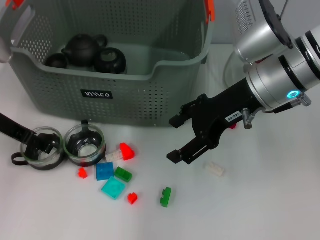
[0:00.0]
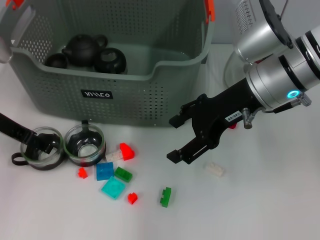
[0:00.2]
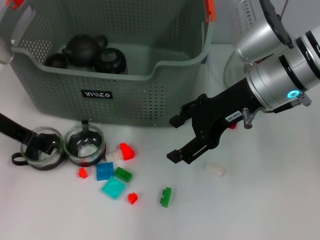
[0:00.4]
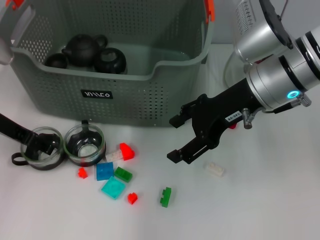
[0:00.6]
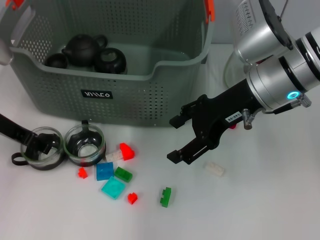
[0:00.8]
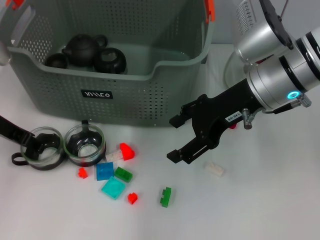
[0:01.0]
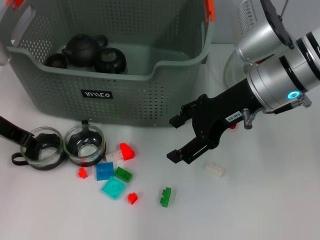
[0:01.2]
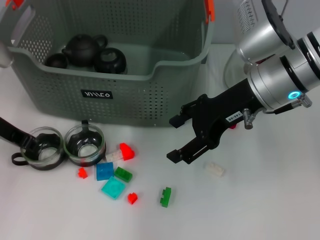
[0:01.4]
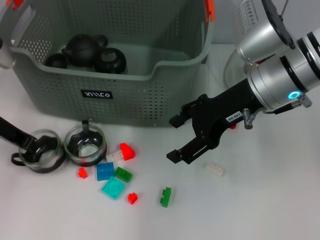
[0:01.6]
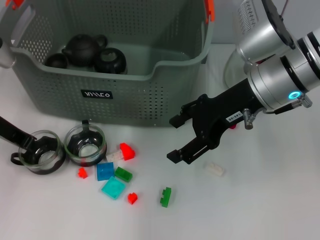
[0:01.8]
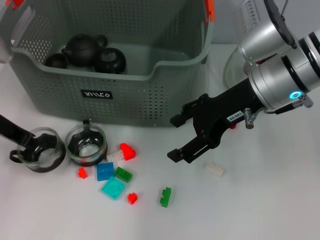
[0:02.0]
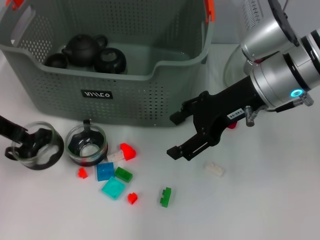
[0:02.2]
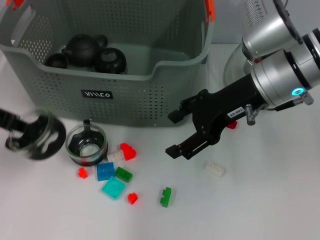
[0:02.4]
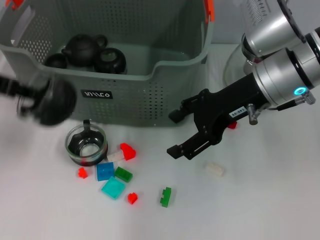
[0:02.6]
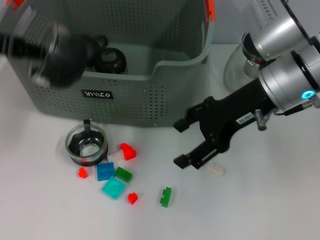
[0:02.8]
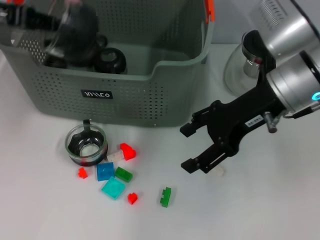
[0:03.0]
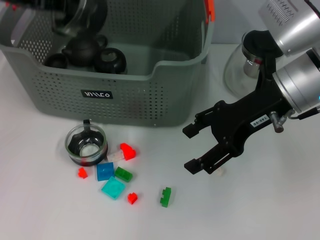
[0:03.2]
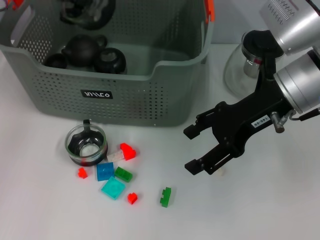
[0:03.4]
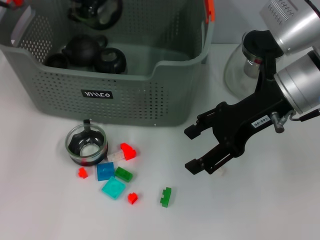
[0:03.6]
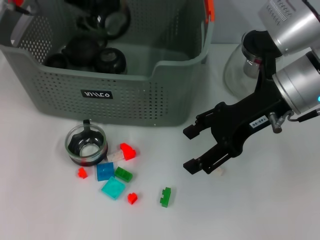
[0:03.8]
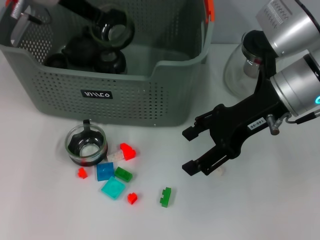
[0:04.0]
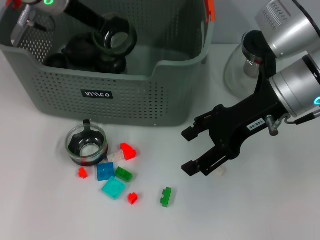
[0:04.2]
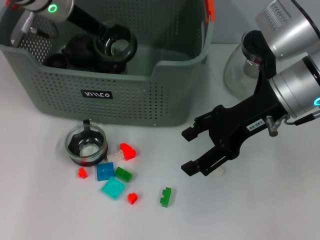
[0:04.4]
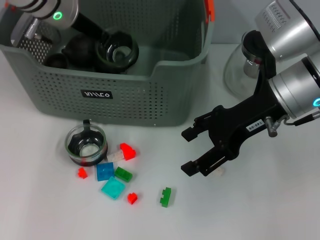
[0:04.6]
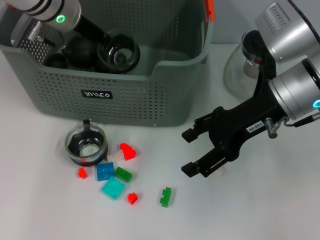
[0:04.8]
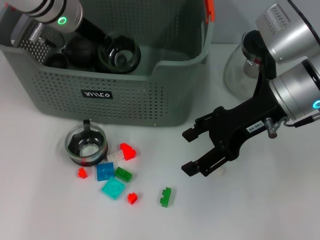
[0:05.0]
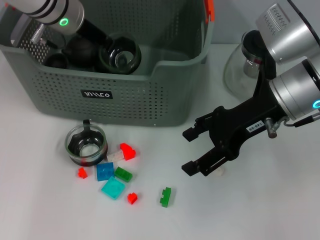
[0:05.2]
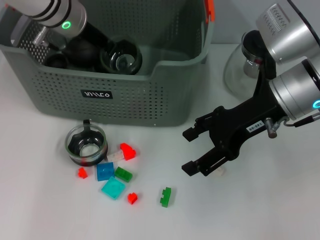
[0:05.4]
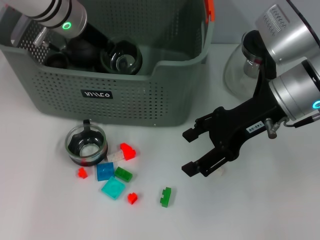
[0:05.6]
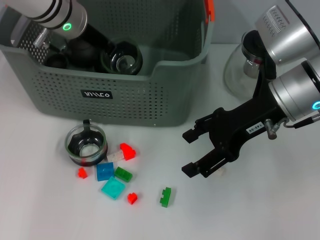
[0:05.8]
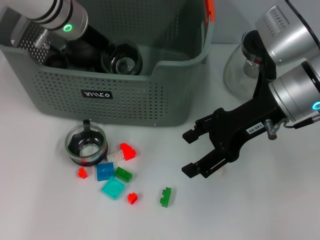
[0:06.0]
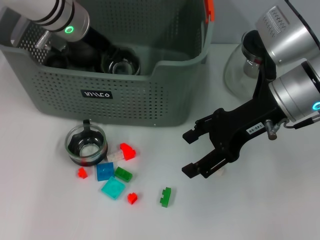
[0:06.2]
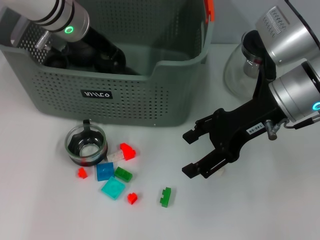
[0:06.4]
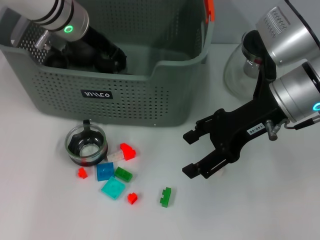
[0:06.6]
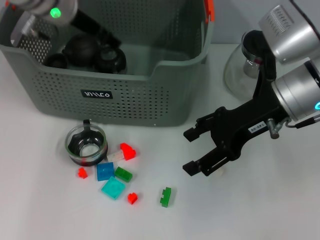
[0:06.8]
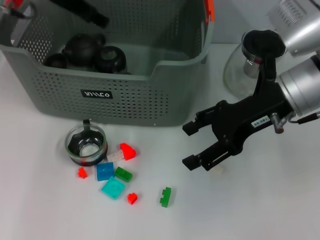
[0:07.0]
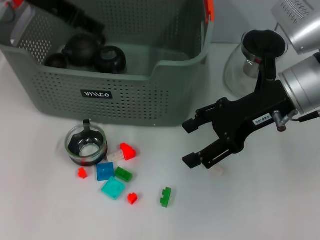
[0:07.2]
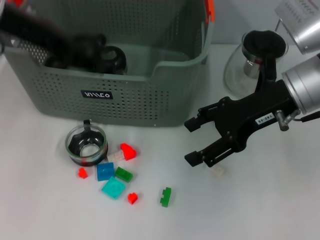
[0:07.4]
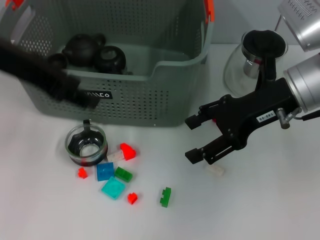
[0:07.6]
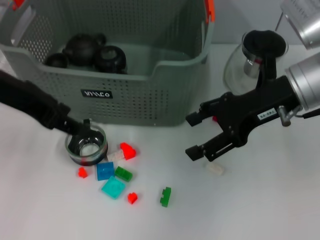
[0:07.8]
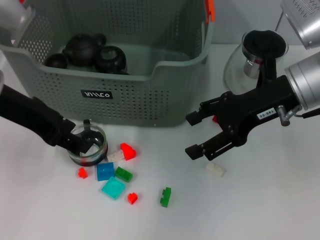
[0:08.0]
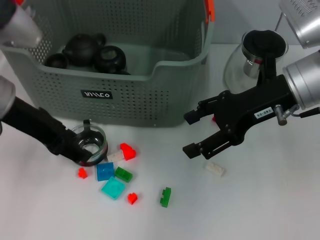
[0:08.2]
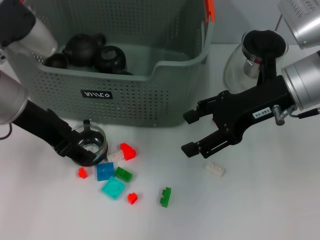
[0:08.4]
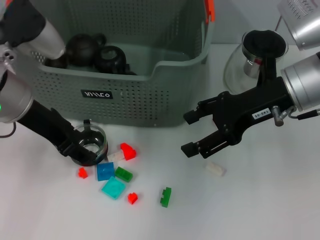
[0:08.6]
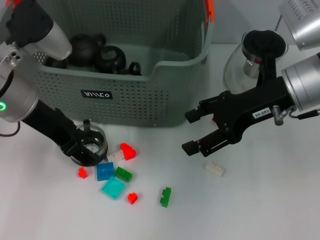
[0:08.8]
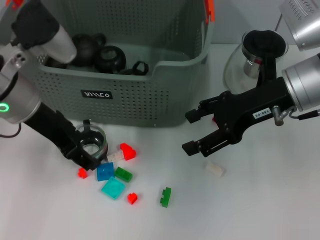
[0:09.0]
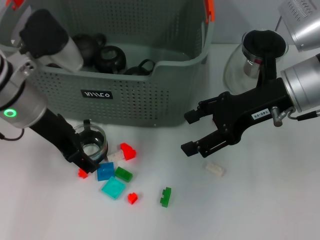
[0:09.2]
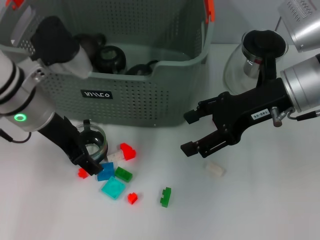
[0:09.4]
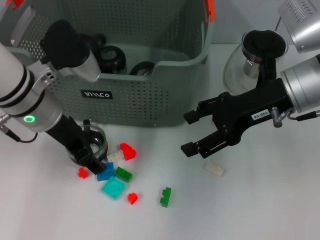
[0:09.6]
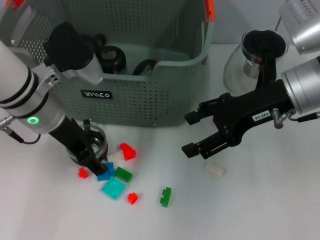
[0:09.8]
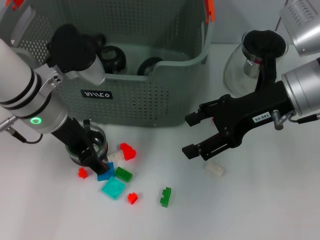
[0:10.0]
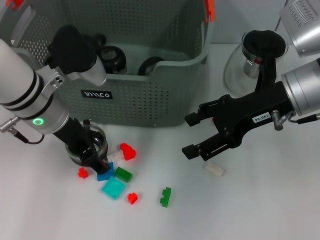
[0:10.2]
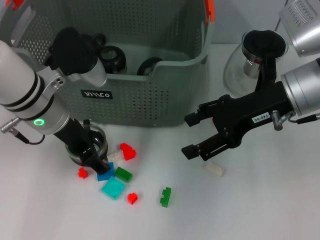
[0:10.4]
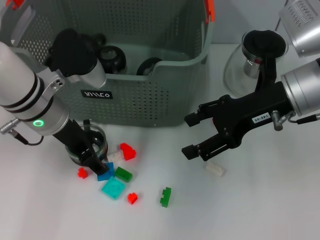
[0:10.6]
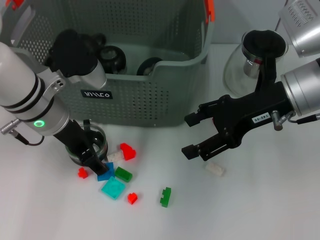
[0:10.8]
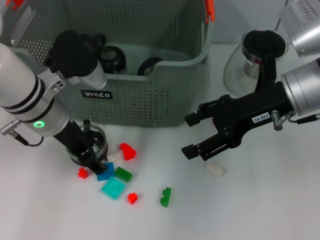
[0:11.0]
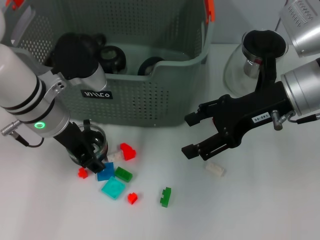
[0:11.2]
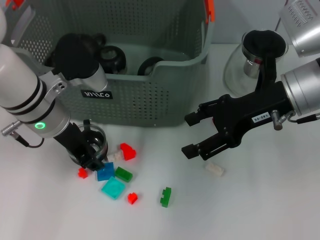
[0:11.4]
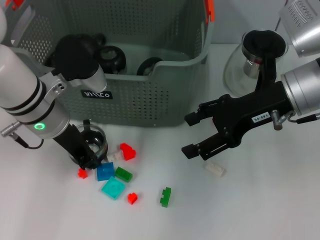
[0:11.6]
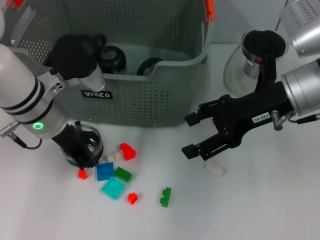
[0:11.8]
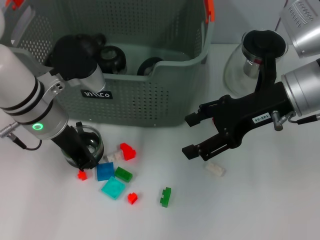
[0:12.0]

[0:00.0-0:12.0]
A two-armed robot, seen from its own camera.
Task of the whole recording: pick up the teacup on the table and place it into the storage bin, pick up the block on the table and place it into the storage bin.
Step, 0:01.4 to 0:06.8: Place the cup in the storage box with left gripper.
Step, 0:07.0 to 0:11.6: Grasp the cup with left gripper.
0:00.0 to 0:01.6: The left gripper closes its fingers.
0:01.6 to 0:03.0: The left gripper goes some 15 cm upward.
0:03.0 to 0:04.4: The left gripper is displaced to the right, forward and downward by some 15 cm.
0:04.4 to 0:06.0: There are only small adjustments of the grippers.
0:06.0 to 0:07.6: The left gripper moves backward, upward and to the left, approximately 15 cm, and opens.
0:07.6 to 0:09.0: The left gripper travels downward by roughly 10 cm.
0:09.0 to 0:10.4: The left gripper moves some 5 cm.
0:10.4 to 0:12.0: The left gripper closes up.

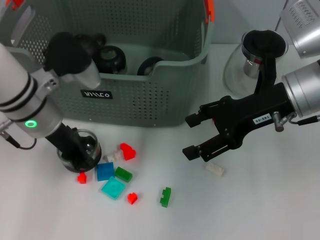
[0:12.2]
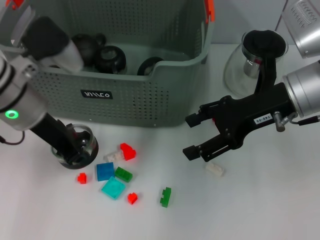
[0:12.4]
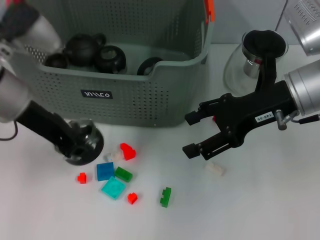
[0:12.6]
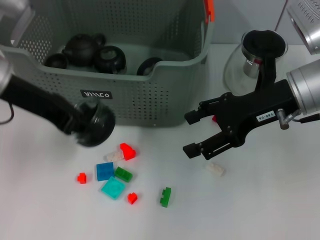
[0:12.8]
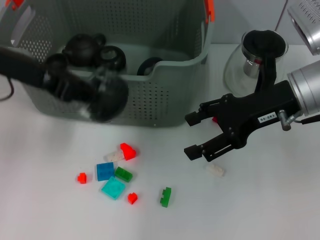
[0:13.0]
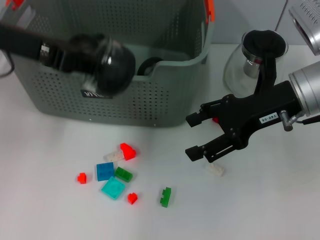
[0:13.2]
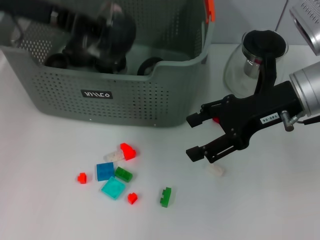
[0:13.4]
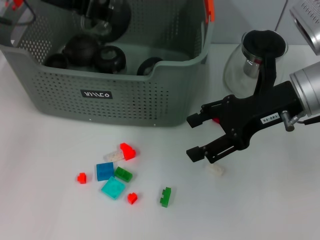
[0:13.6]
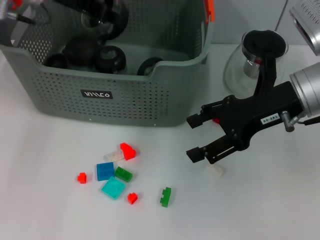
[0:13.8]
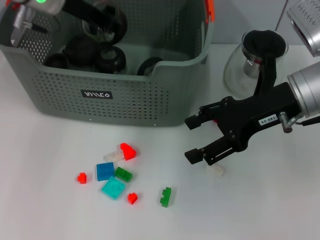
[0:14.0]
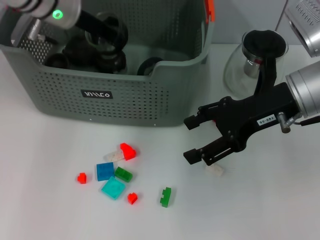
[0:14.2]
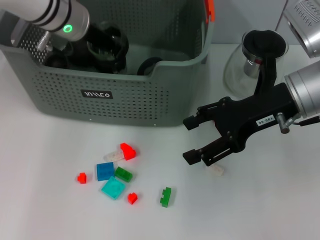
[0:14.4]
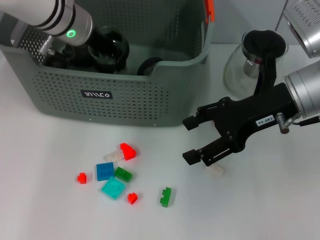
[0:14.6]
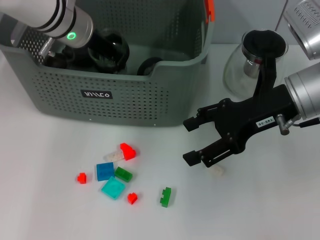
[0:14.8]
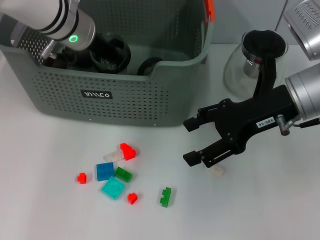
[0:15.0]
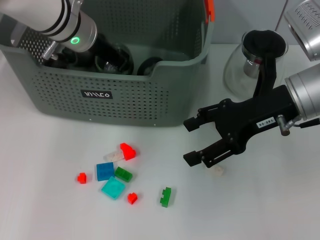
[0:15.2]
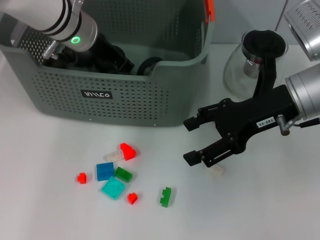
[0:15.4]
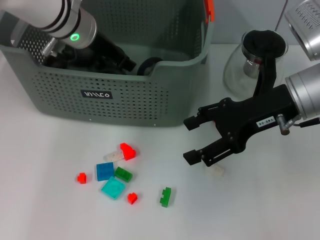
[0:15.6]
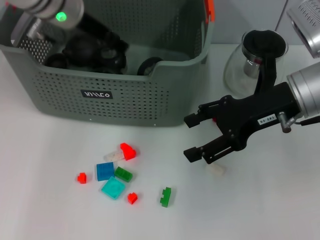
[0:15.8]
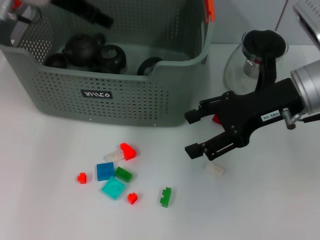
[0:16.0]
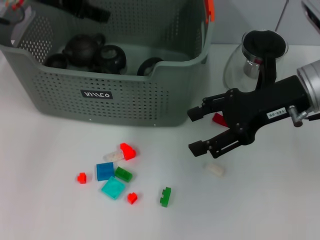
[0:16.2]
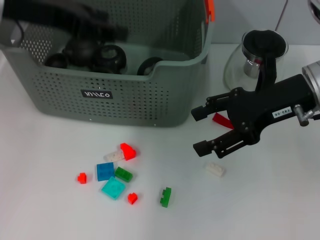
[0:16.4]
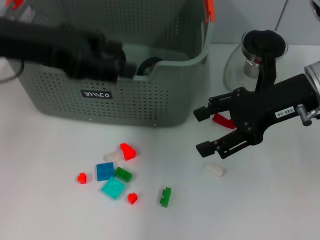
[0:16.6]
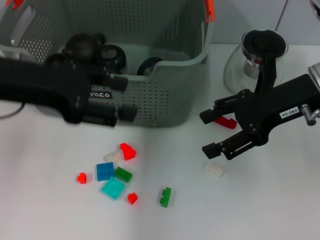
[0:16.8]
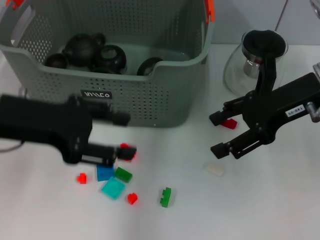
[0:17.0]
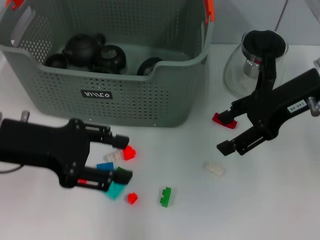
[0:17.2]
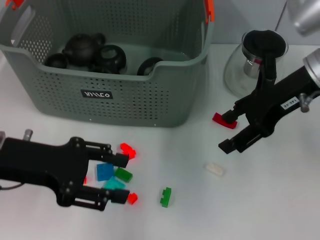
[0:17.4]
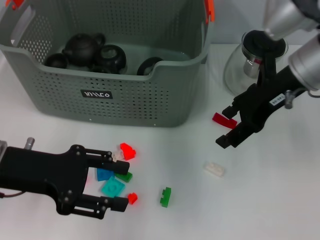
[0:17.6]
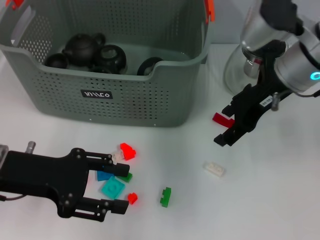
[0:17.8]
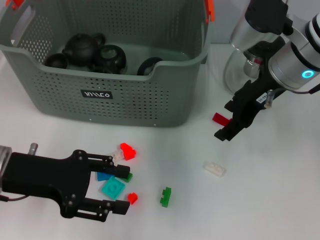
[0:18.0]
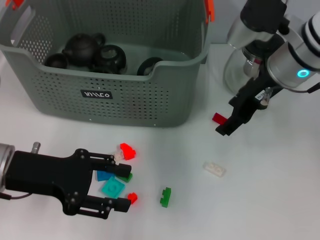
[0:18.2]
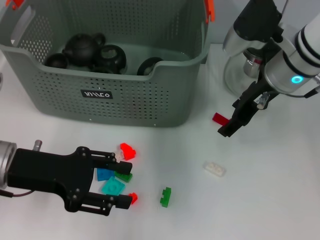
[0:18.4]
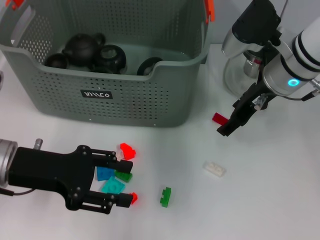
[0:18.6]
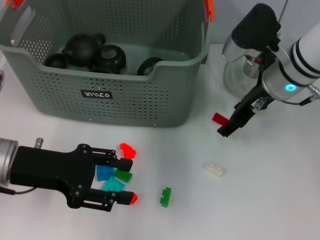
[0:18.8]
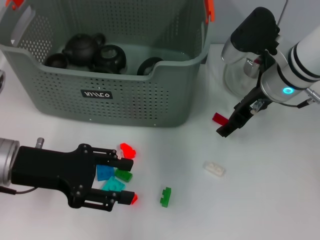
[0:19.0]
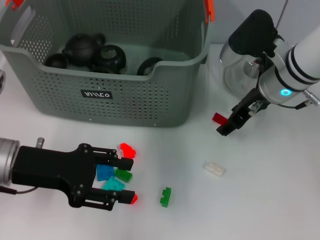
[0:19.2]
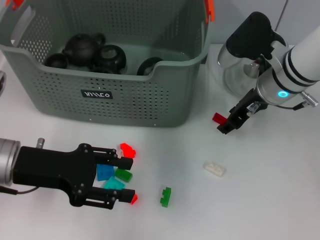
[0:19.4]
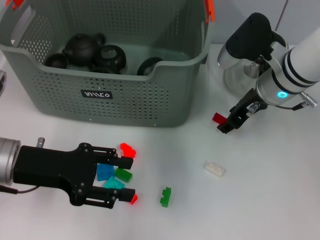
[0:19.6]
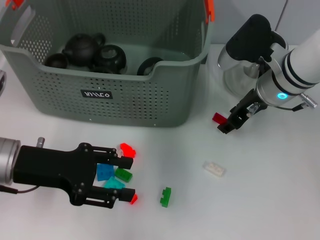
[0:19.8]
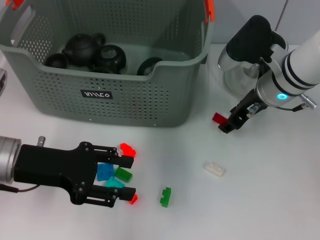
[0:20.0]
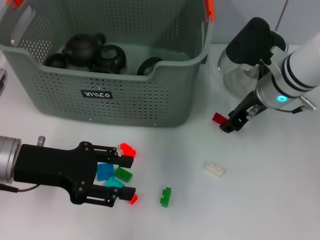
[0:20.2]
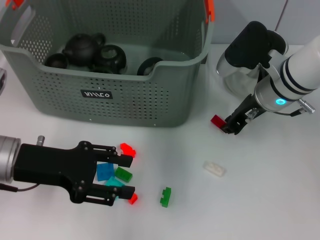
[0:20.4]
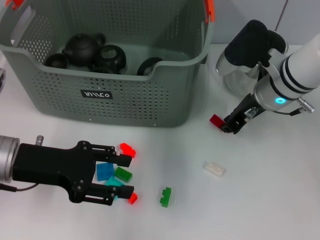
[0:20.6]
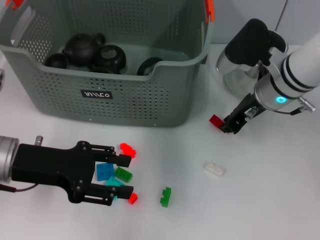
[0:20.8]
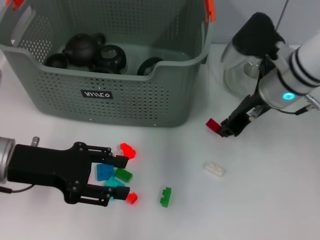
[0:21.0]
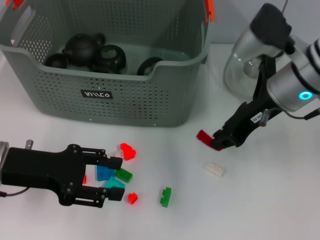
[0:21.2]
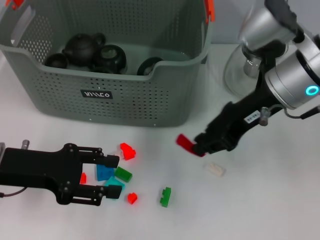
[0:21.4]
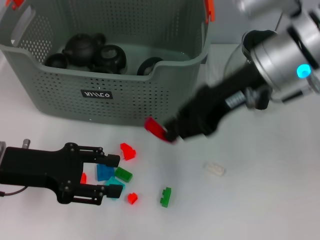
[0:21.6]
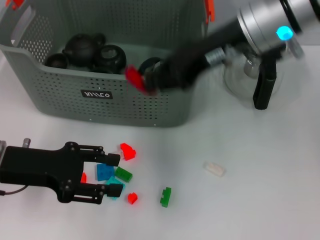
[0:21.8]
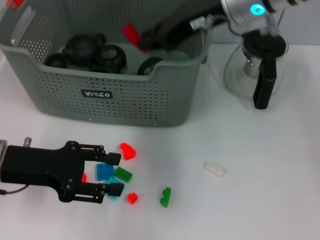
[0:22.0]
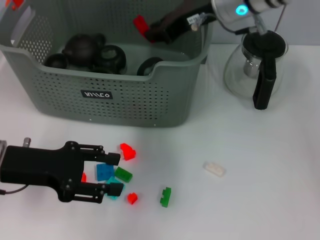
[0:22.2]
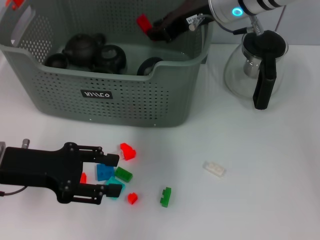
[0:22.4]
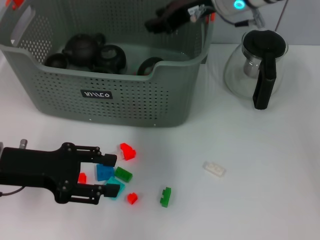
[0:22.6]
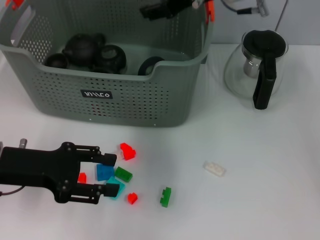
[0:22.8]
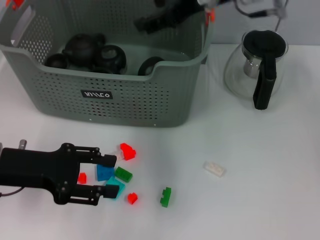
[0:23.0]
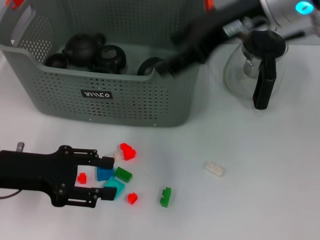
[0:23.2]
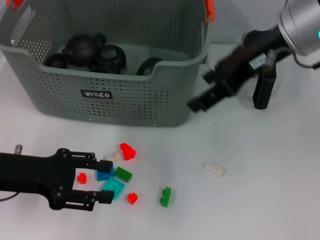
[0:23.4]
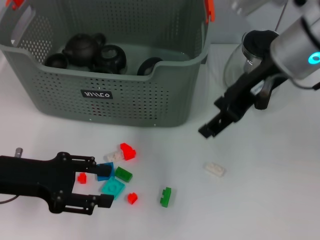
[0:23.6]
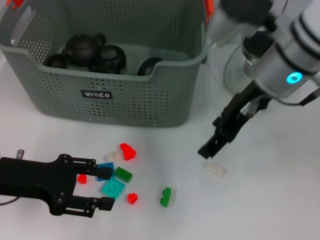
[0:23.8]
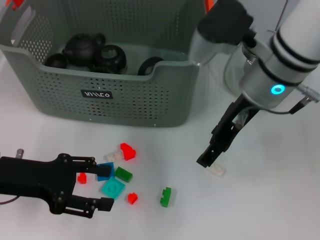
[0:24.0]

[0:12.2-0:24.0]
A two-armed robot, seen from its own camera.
Task of the whole recording: pick up the teacup on the table and place it into the storage bin, pick up the block on the table and place it into the storage bin.
Step, 0:12.2 to 0:16.2: Place the cup in the storage box with left gripper.
Step, 0:16.4 to 0:20.4: Grasp the red block with right gripper.
Step, 0:20.6 to 0:22.4: Place the red block in the storage box with right gripper.
0:12.2 to 0:13.6: The left gripper is displaced upward and forward by about 15 cm.
0:13.6 to 0:15.2: The left gripper goes approximately 10 cm downward and to the right.
0:15.2 to 0:16.6: The left gripper heads backward, to the left and upward, covering about 15 cm, and opens its fingers.
0:16.6 to 0:18.2: The left gripper shifts approximately 15 cm downward and backward. Meanwhile the right gripper goes about 5 cm forward.
0:18.2 to 0:19.6: The right gripper moves downward, some 5 cm.
0:19.6 to 0:21.0: The right gripper closes its fingers.
0:21.0 to 0:22.6: The right gripper is displaced upward, to the left and forward by about 15 cm.
0:22.6 to 0:24.0: The right gripper is displaced backward by some 10 cm, and opens its fingers.
